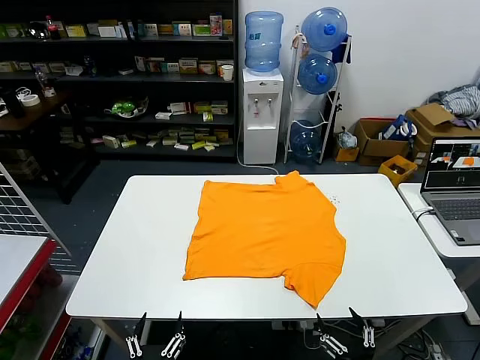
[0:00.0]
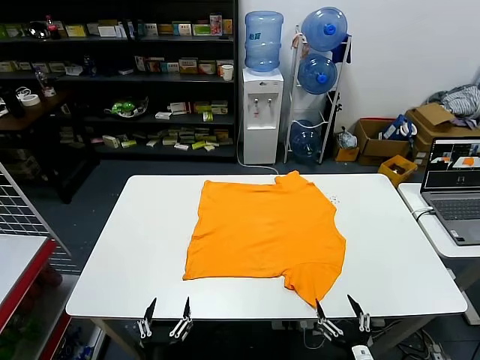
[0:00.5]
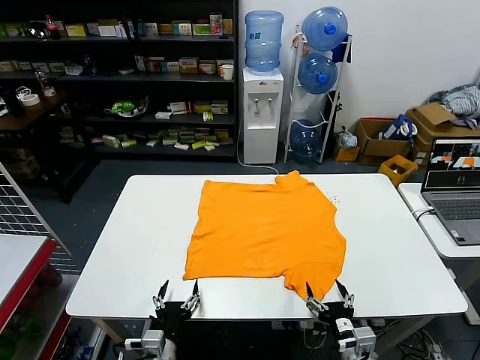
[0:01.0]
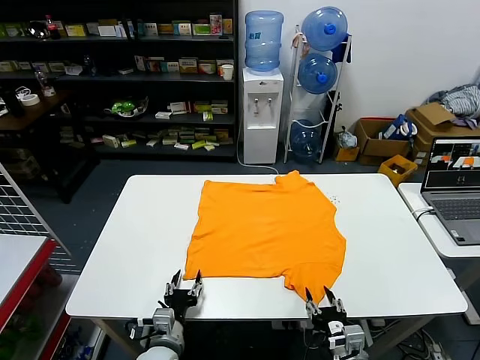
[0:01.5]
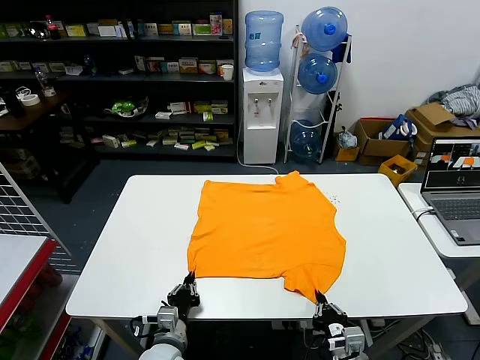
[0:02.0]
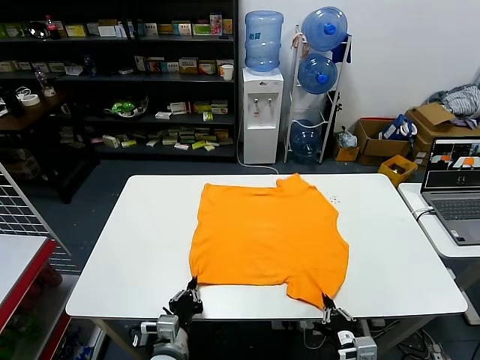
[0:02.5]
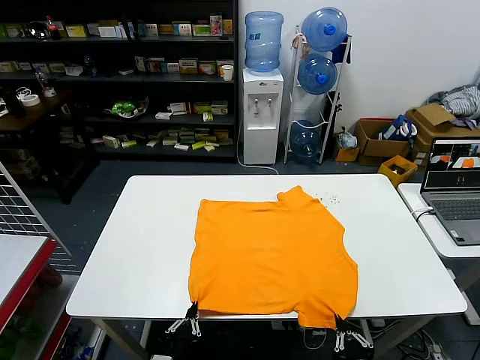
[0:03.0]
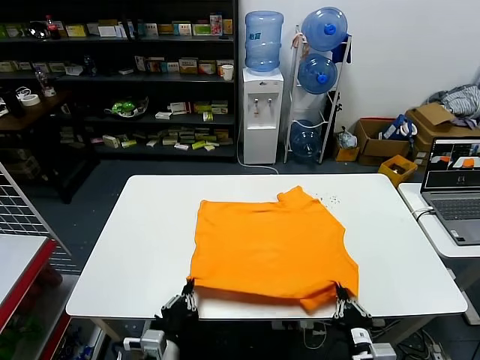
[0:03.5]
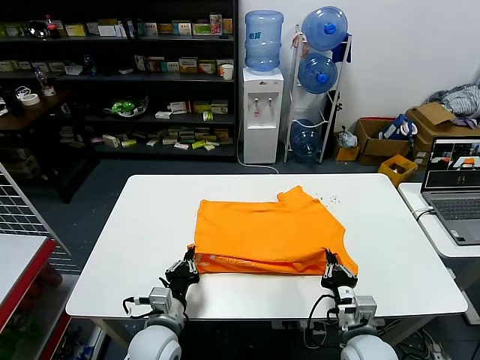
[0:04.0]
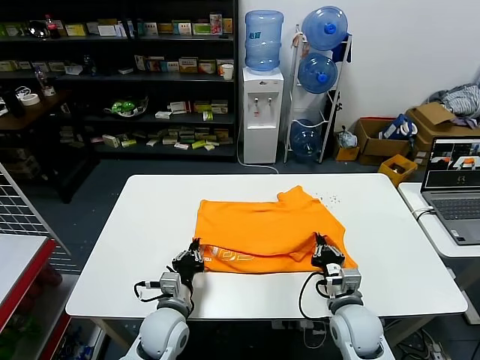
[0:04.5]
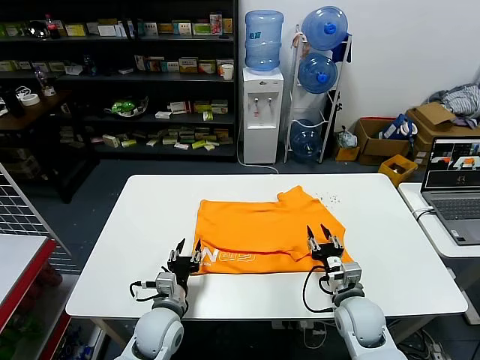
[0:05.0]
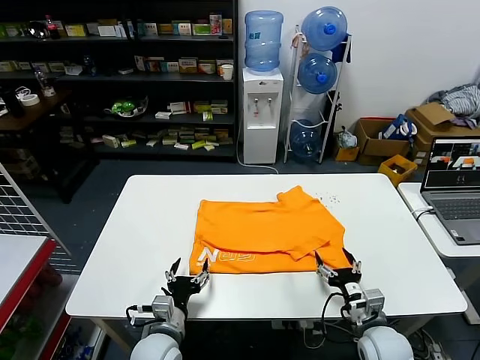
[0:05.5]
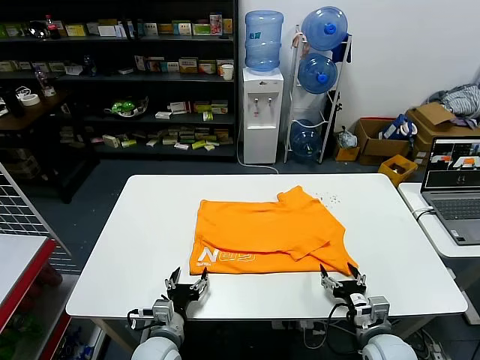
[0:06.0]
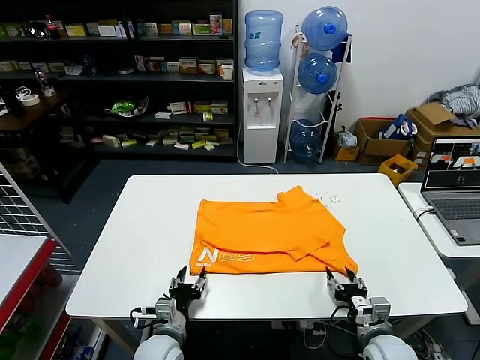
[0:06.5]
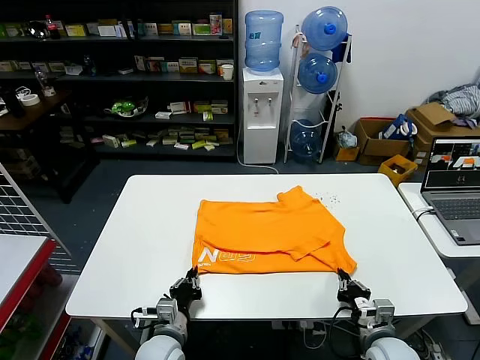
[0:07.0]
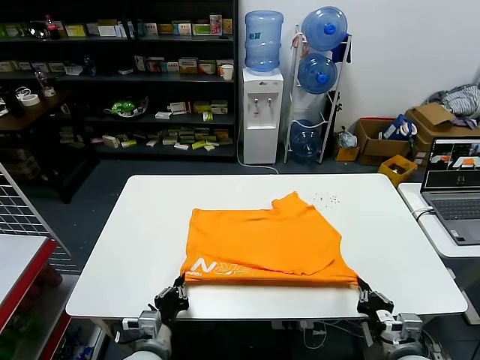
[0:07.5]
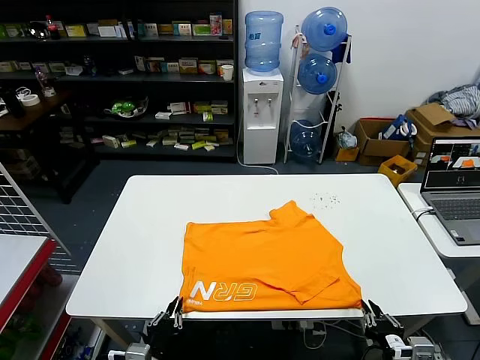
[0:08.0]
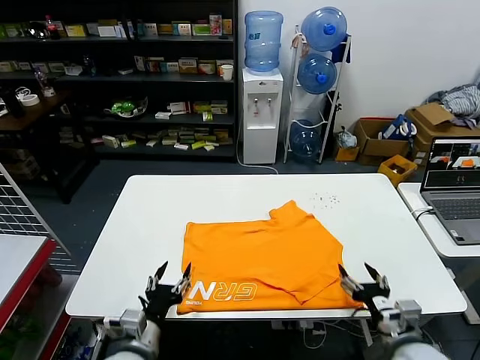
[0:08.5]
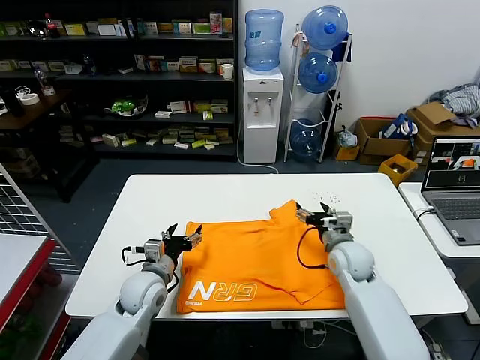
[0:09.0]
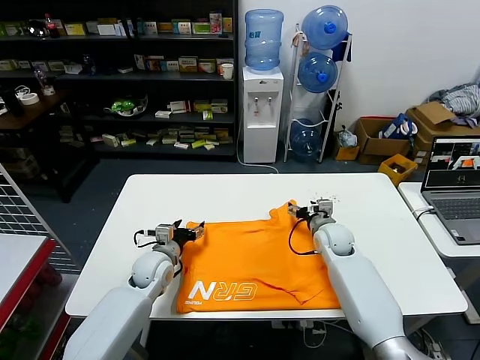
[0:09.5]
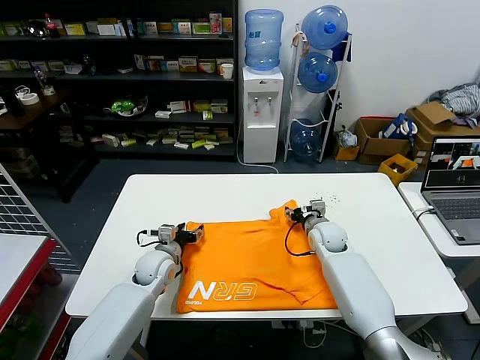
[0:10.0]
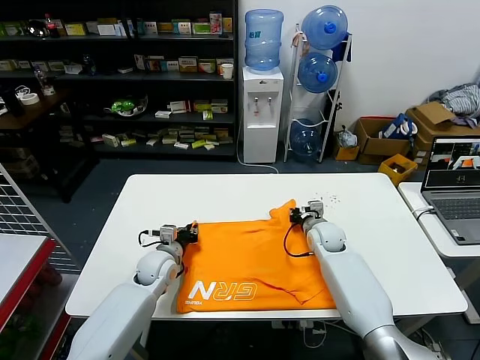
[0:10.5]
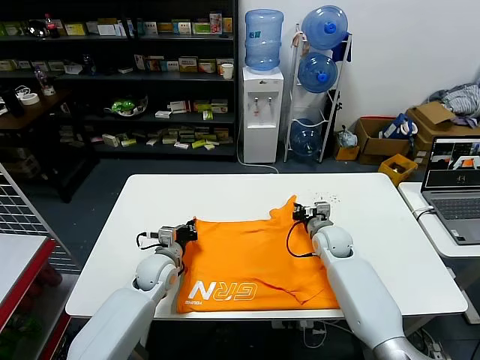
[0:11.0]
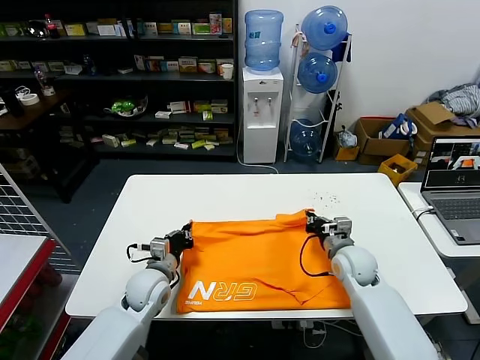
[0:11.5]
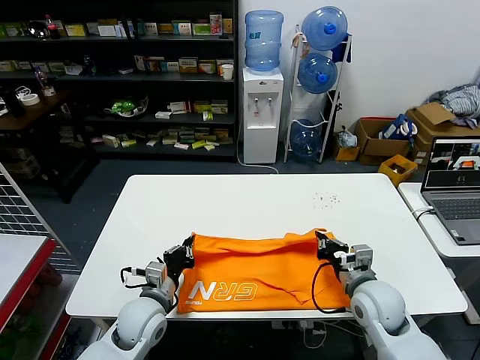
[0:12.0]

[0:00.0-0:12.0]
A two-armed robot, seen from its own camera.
Task of the whole recording: fold and organize the clothes.
Step, 0:00.0 to 0:01.5: use both grippers simultaneously to clamp the lower edge of the clothing fabric.
Step, 0:02.5 to 0:05.0: use both grippers to drag the lower edge of the fabric forward and fold it over the upper edge.
Step, 0:05.5 to 0:08.0: Drag the clothes downward with both gripper.
Step, 0:08.5 to 0:10.5: use both grippers simultaneously to clamp the upper edge of the clothing fabric.
0:02.0 to 0:04.0: The right gripper moves forward, approximately 5 cm. Meanwhile the left gripper travels upward by approximately 5 cm, and reaches approximately 10 cm backward, then returns.
0:04.0 to 0:06.0: The left gripper opens. Meanwhile the right gripper is displaced to the right by some 5 cm, and opens its fingers.
0:06.0 to 0:08.0: Both grippers travel together backward, some 10 cm. The left gripper closes up. The right gripper closes its fingers.
0:08.0 to 0:10.0: The two grippers go approximately 35 cm forward. The left gripper opens, while the right gripper opens.
0:10.0 to 0:12.0: The right gripper goes about 20 cm backward, and closes. The left gripper shifts about 15 cm backward, and closes.

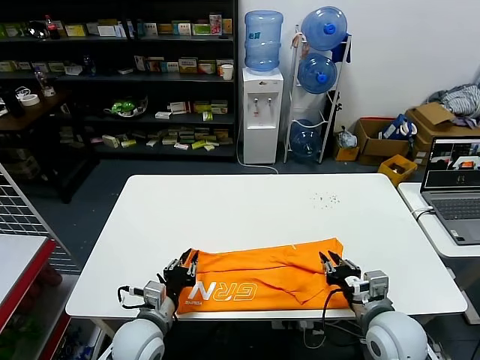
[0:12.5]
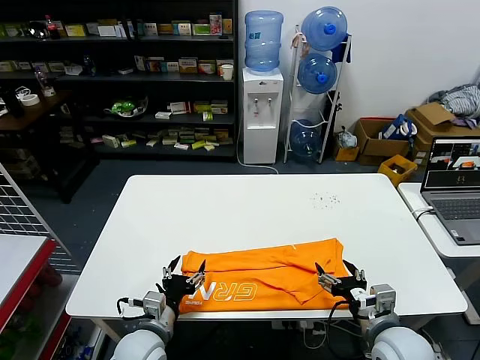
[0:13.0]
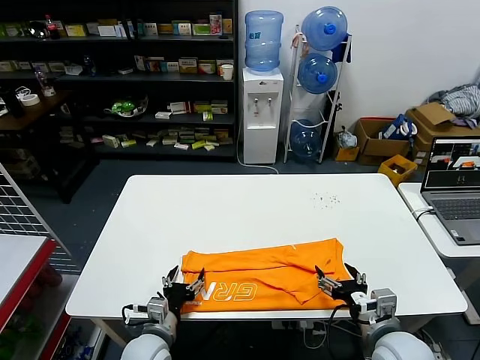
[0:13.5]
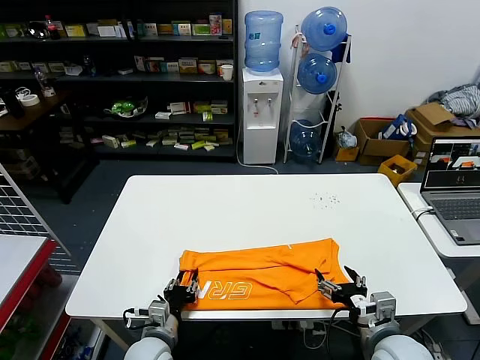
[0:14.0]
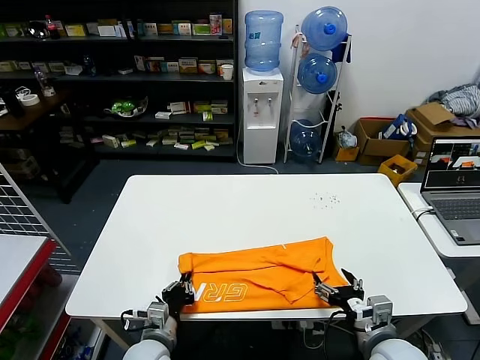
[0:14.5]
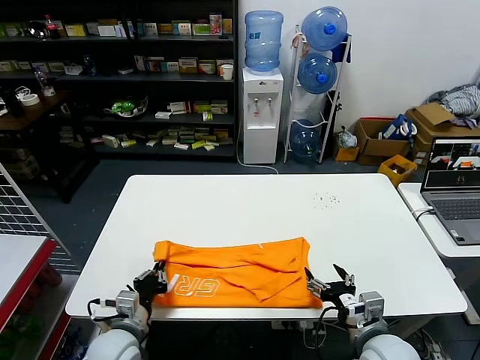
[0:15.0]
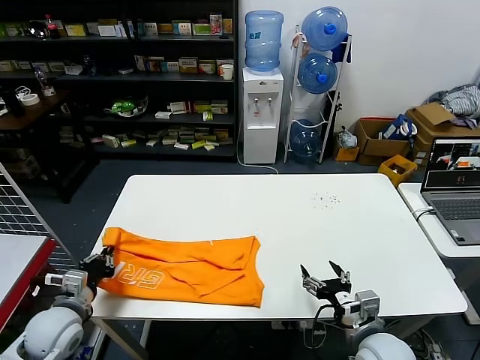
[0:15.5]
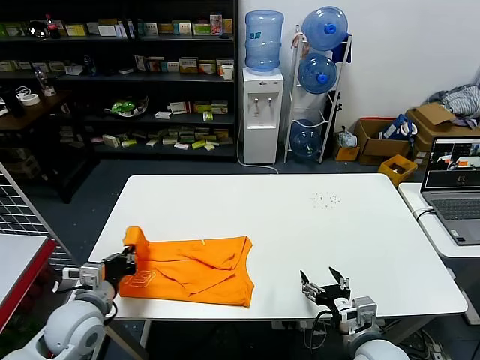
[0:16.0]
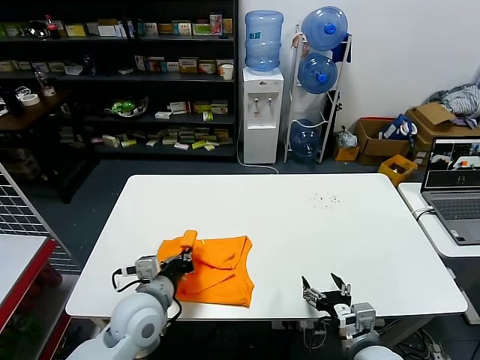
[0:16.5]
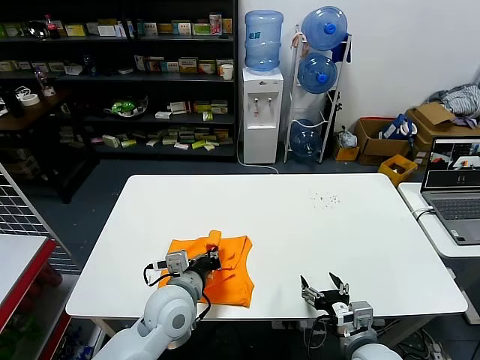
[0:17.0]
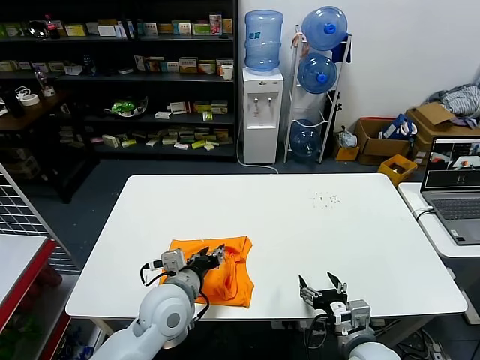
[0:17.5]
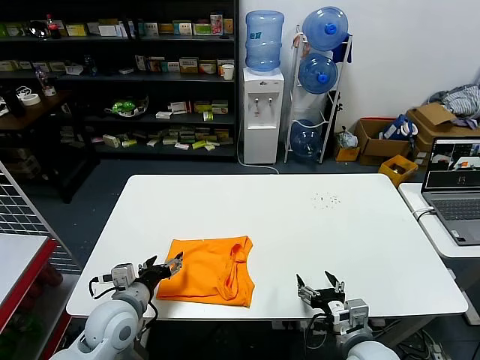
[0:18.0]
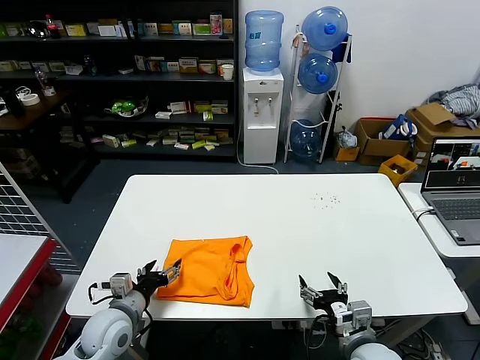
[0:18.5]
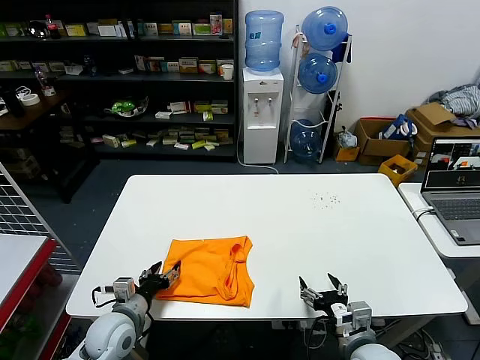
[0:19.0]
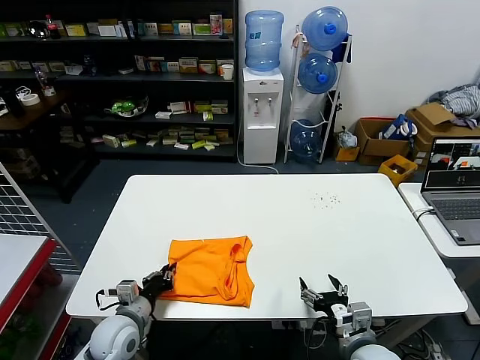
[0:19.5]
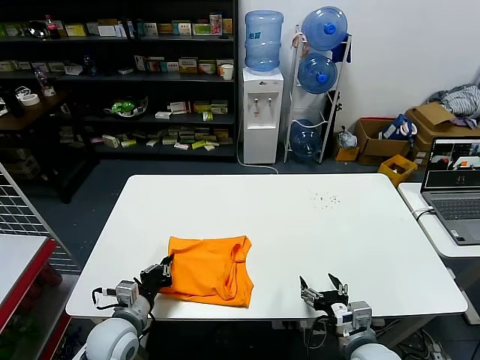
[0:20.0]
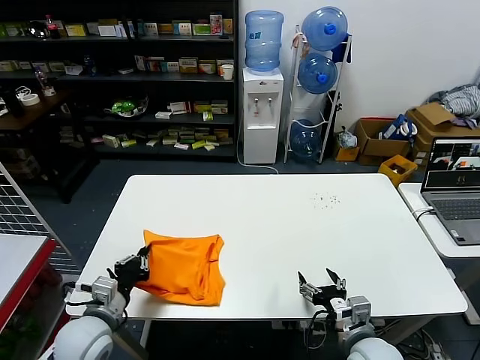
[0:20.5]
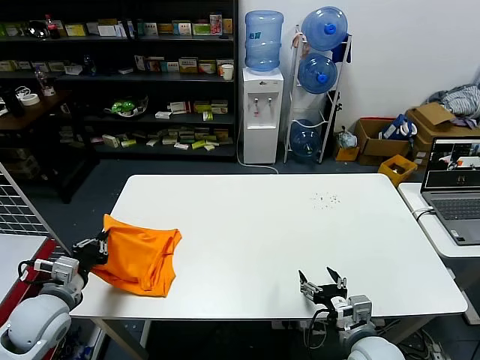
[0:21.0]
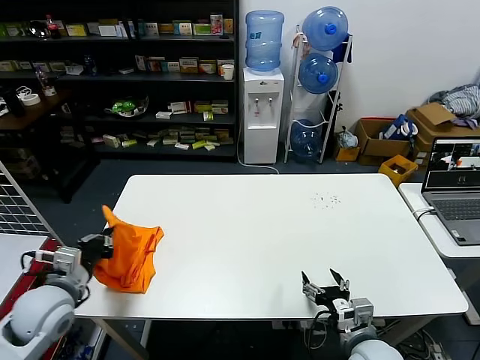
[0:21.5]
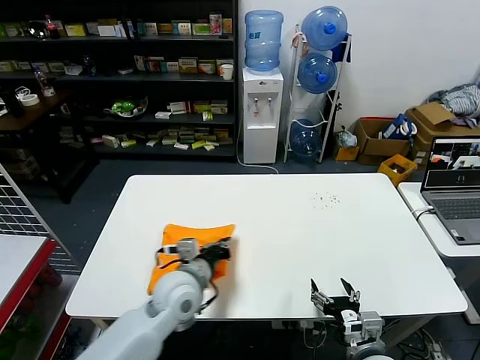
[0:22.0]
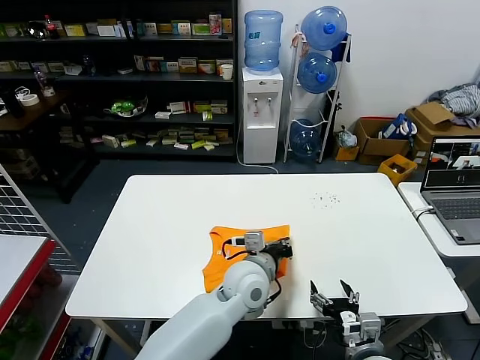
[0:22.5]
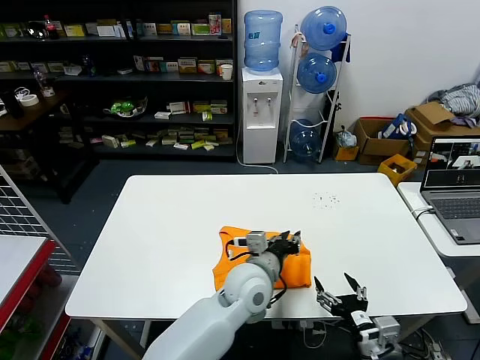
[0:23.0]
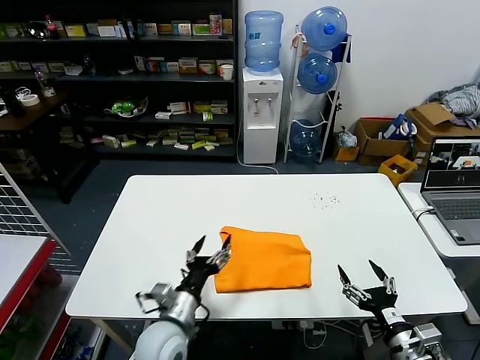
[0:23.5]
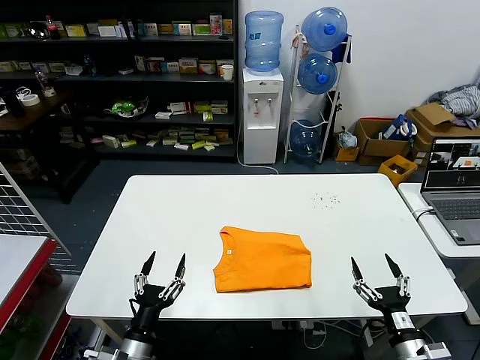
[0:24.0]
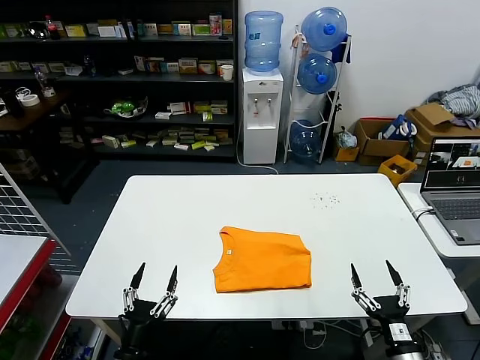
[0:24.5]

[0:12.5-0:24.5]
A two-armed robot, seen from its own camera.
Task of the whole recording: fold and organize the clothes.
Step, 0:13.0 to 0:14.0: use the left gripper to clamp the left edge of the fabric.
Step, 0:14.5 to 0:18.0: use the left gripper to drag the left edge of the fabric to the left and folds it over the right edge.
Step, 0:18.5 to 0:23.0: Flip the folded clothes over with left gripper.
0:12.5 to 0:14.5: The left gripper heads downward, covering some 5 cm, and opens, then closes once more, while the right gripper opens its fingers.
0:14.5 to 0:16.5: The left gripper goes some 15 cm upward, and travels to the left and back again, roughly 15 cm each way.
0:16.5 to 0:18.5: The left gripper goes about 10 cm to the left and downward, and opens its fingers.
0:18.5 to 0:20.5: The left gripper shifts by some 5 cm, and closes.
0:20.5 to 0:22.5: The left gripper goes some 30 cm to the right.
0:22.5 to 0:24.5: The left gripper moves to the left, backward and downward, about 35 cm, and opens up. The right gripper travels to the right by approximately 10 cm.
